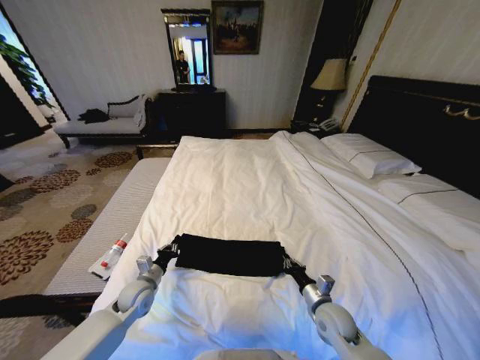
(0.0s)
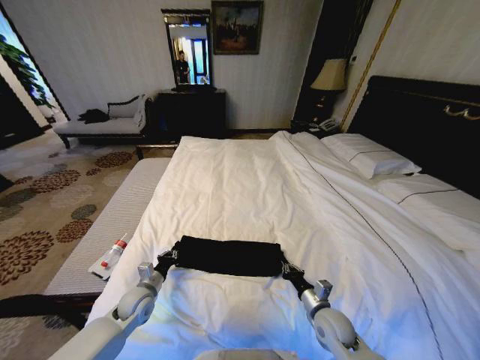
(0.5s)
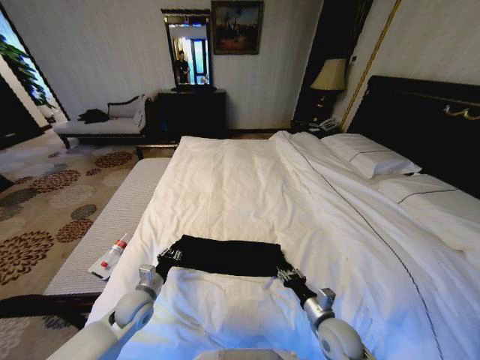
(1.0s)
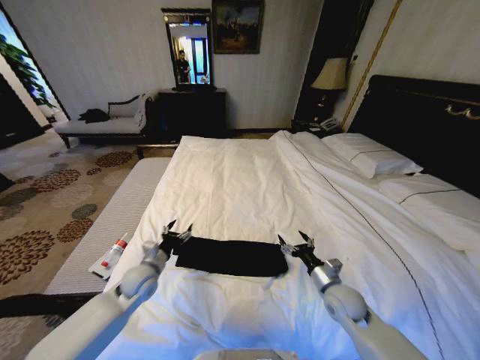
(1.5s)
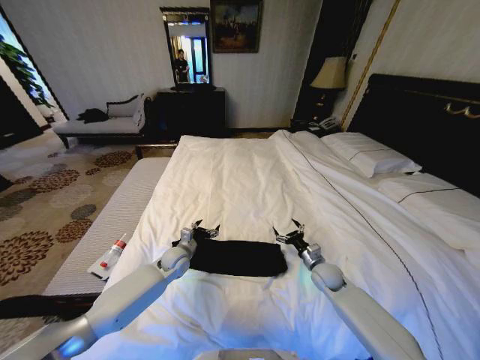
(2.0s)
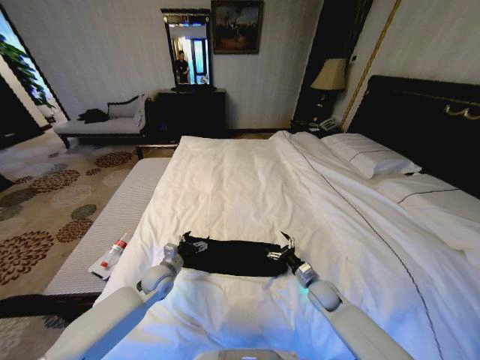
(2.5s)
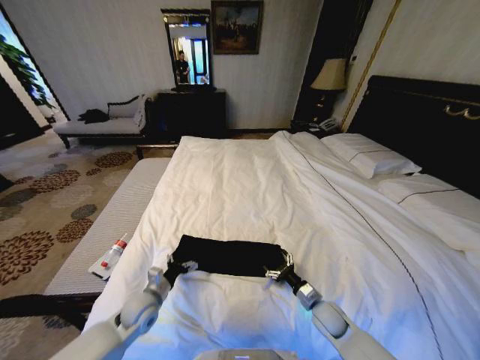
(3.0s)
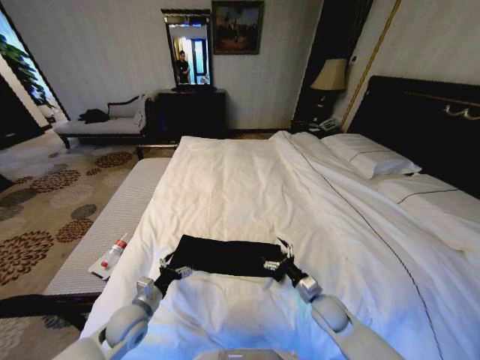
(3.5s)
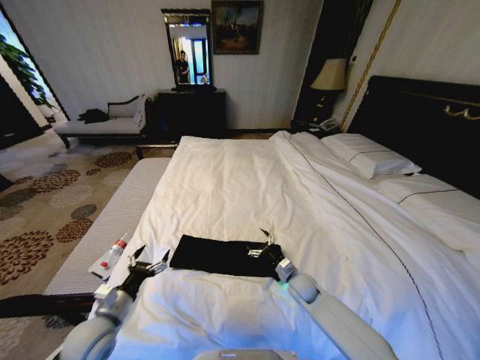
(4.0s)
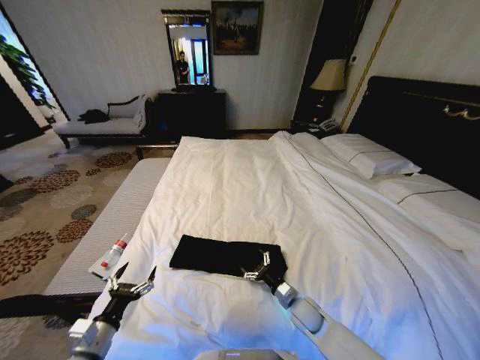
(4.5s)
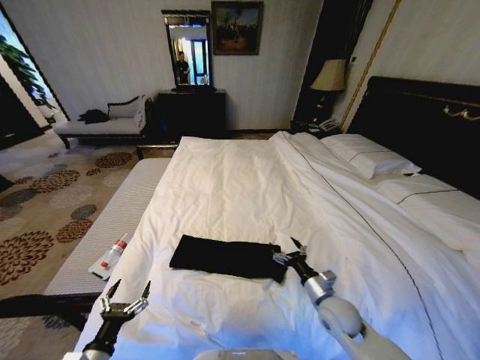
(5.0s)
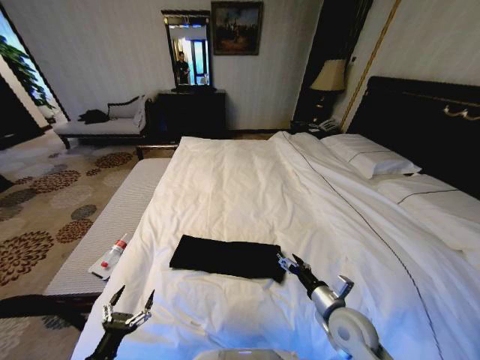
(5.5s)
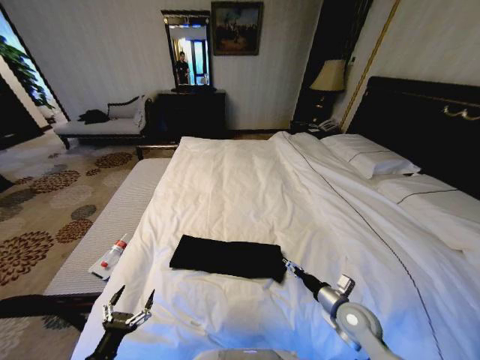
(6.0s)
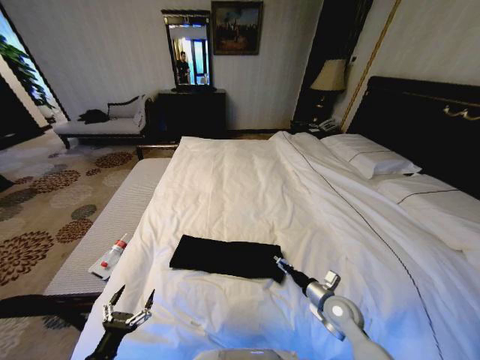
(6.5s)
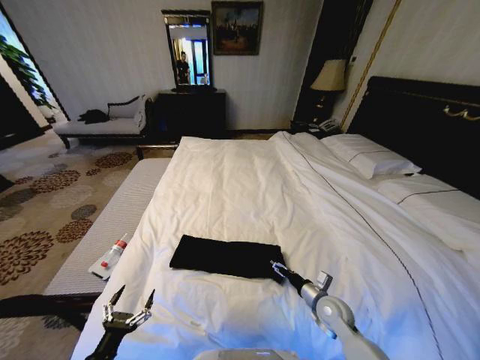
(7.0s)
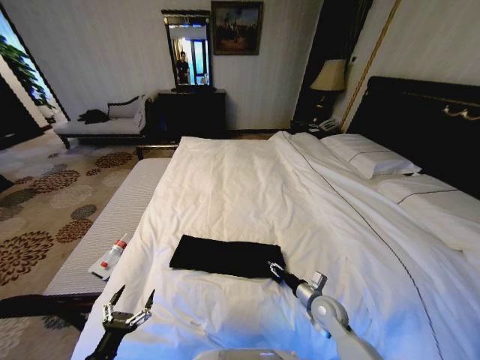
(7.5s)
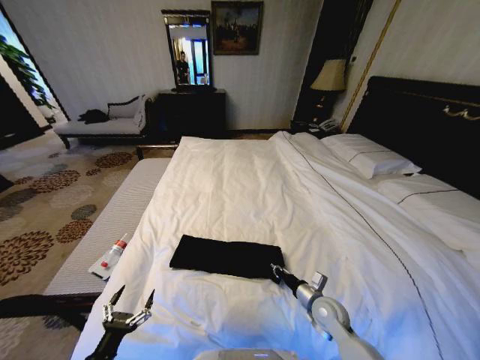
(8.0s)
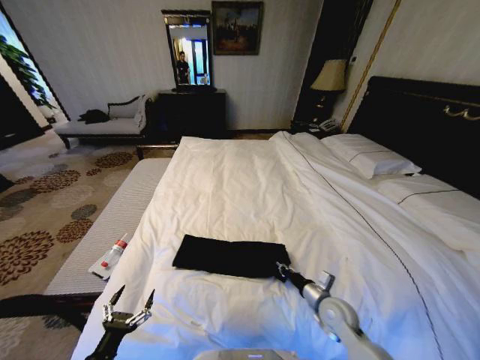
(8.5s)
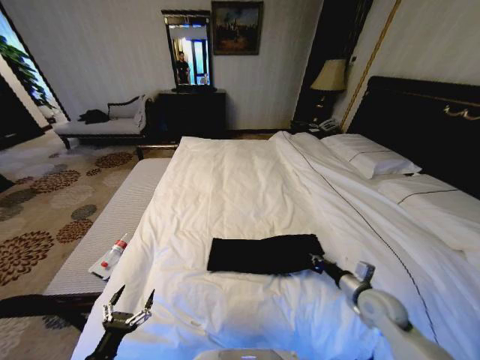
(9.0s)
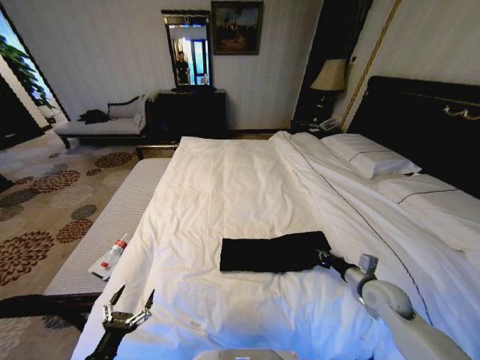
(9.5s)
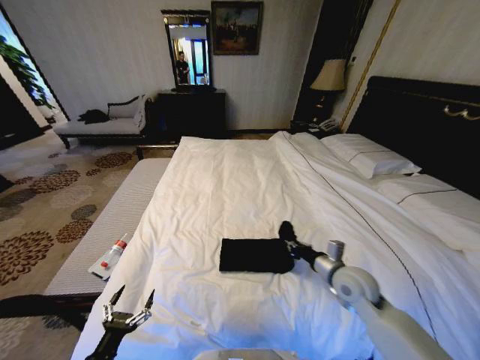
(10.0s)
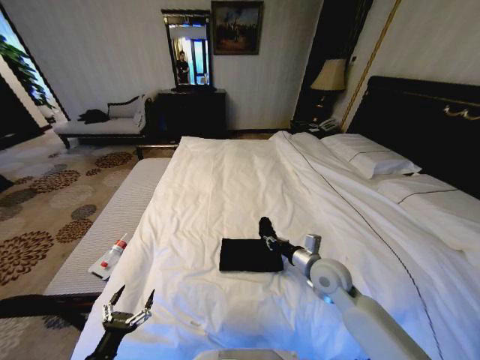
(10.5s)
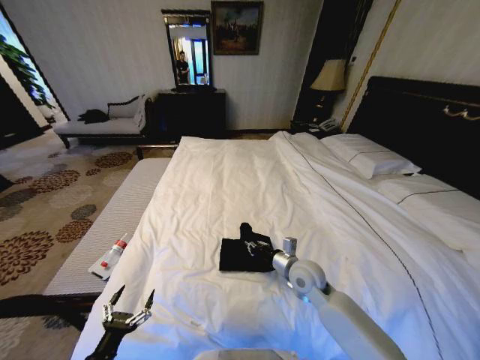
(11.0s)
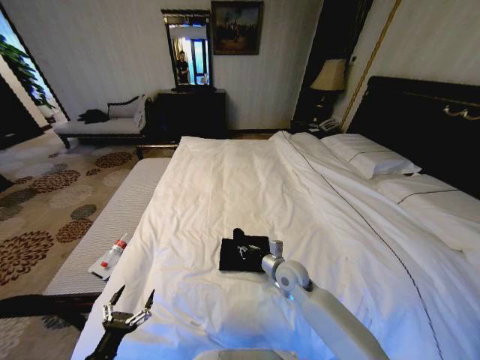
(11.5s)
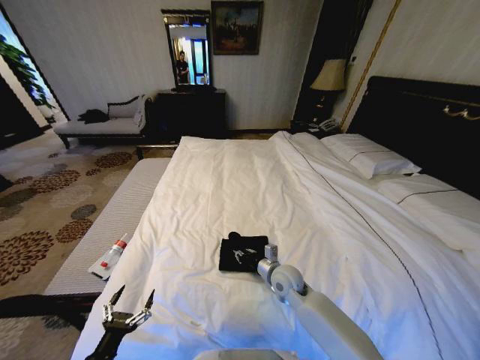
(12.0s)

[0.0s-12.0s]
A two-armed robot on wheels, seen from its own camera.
Task of the whole recording: Fold the clothes on the bed.
0.0s to 2.0s: The left gripper is displaced forward and to the right by approximately 15 cm, and opens up. Meanwhile the right gripper heads forward, covering roughly 15 cm, and opens up.
2.0s to 4.0s: The left gripper heads backward and to the left, covering some 25 cm. The right gripper heads to the left, covering roughly 10 cm, and goes backward and returns, roughly 10 cm each way.
4.0s to 6.0s: The left gripper travels backward by some 15 cm, while the right gripper shifts about 15 cm backward, to the right and upward.
6.0s to 8.0s: The right gripper ends up about 5 cm from where it was, and closes up.
8.0s to 10.0s: The right gripper shifts approximately 15 cm upward.
10.0s to 12.0s: The right gripper travels to the left and downward by roughly 15 cm.

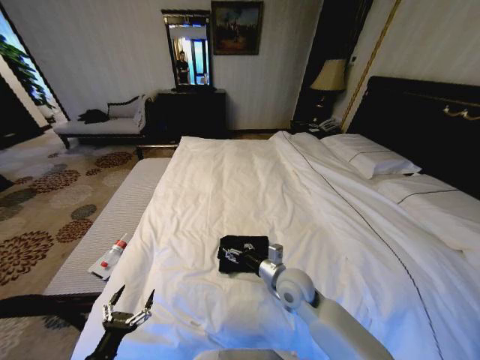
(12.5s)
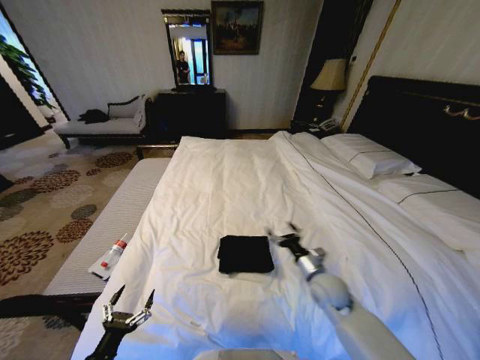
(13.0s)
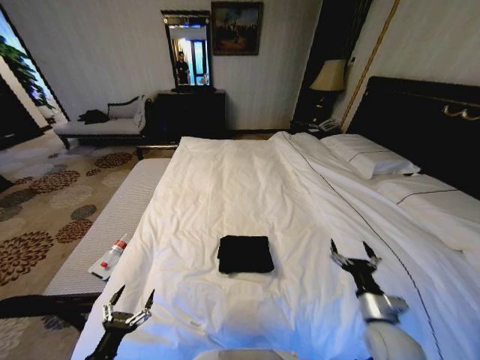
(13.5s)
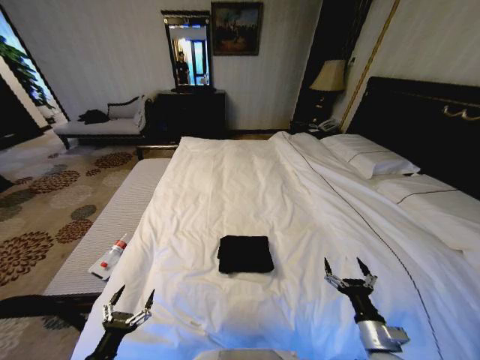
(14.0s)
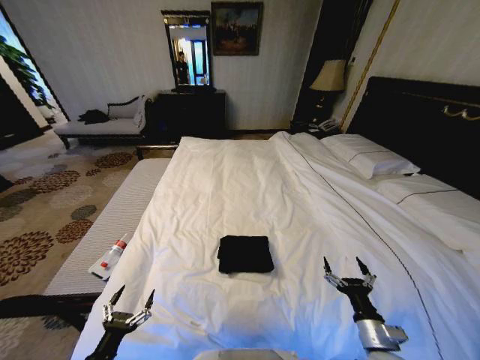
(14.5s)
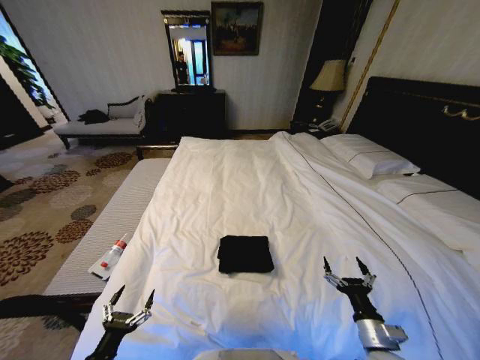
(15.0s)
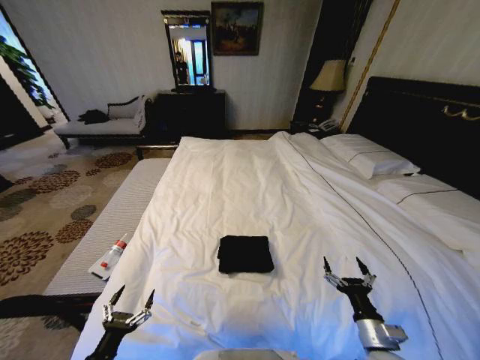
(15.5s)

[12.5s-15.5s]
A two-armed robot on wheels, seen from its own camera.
Task of the whole recording: Fold the clothes on the bed.
12.5s to 14.0s: The right gripper goes approximately 25 cm to the right and backward.
14.0s to 15.5s: Both grippers stay about where they are.
